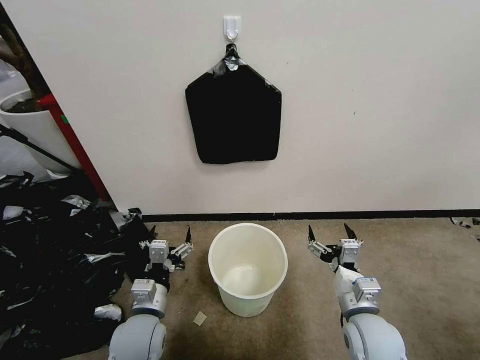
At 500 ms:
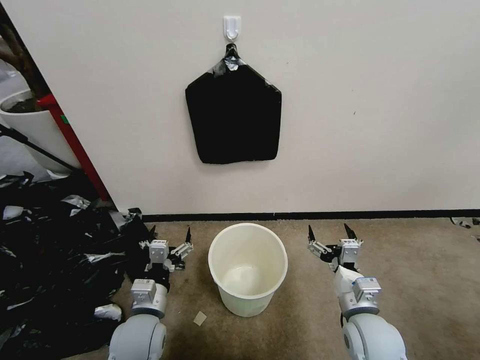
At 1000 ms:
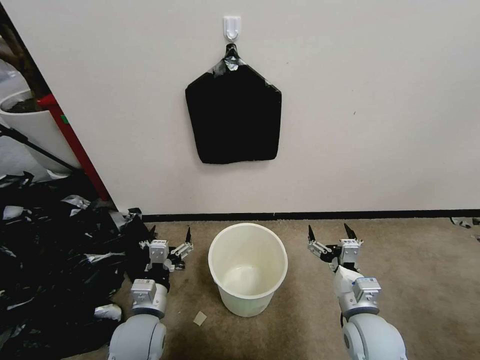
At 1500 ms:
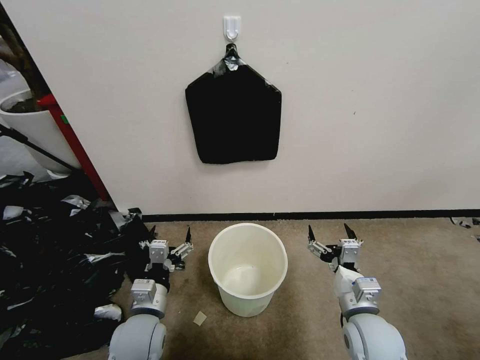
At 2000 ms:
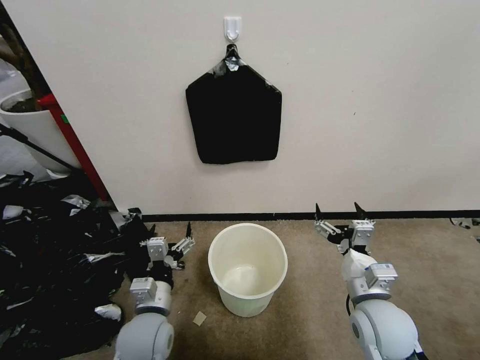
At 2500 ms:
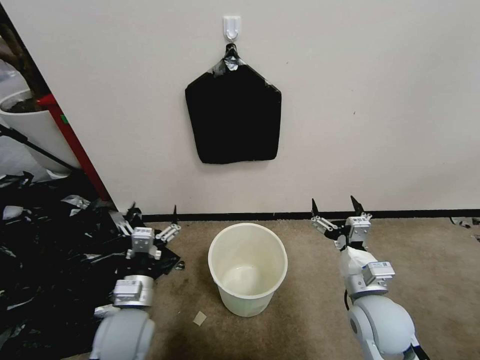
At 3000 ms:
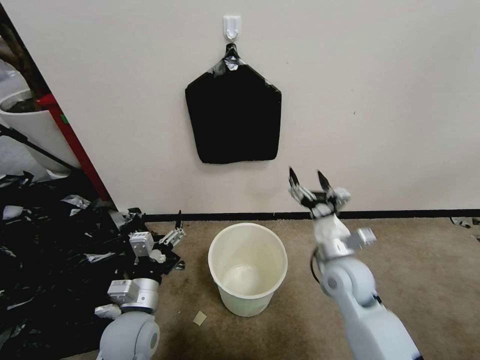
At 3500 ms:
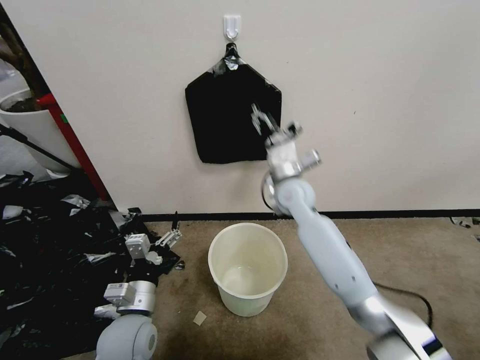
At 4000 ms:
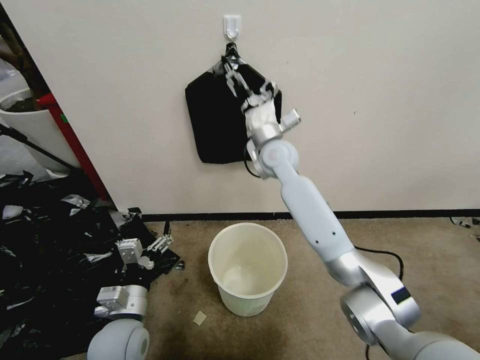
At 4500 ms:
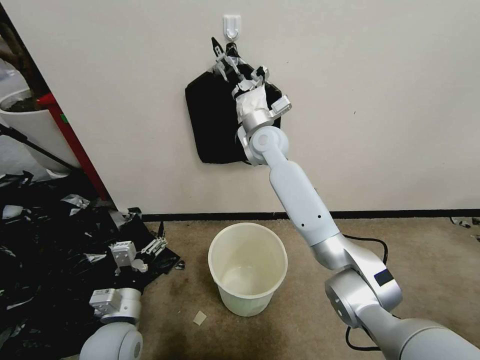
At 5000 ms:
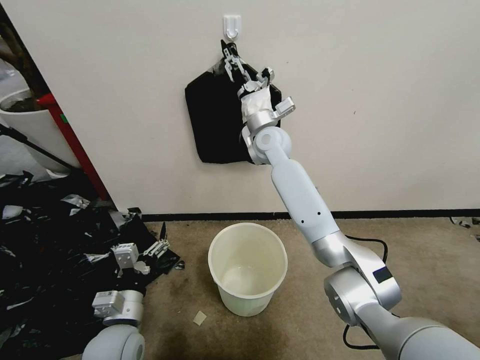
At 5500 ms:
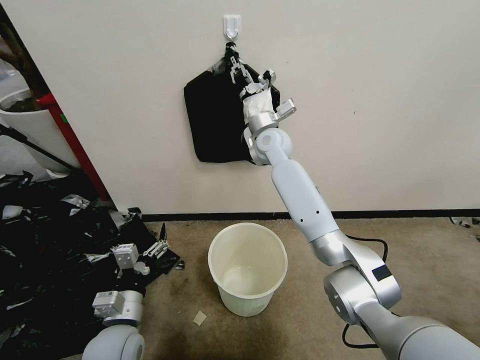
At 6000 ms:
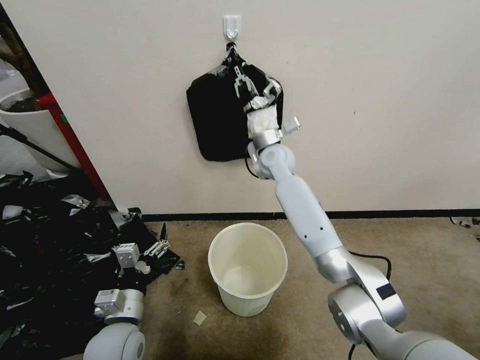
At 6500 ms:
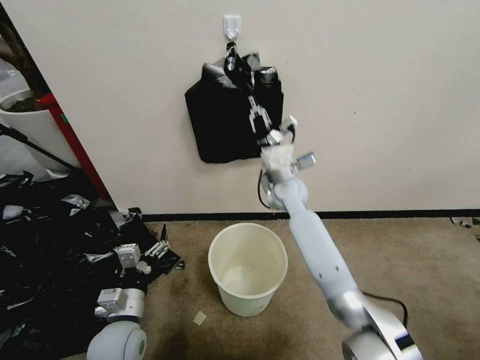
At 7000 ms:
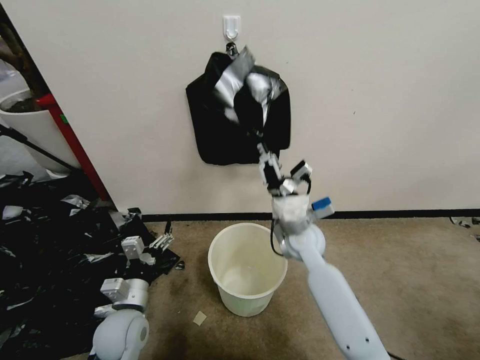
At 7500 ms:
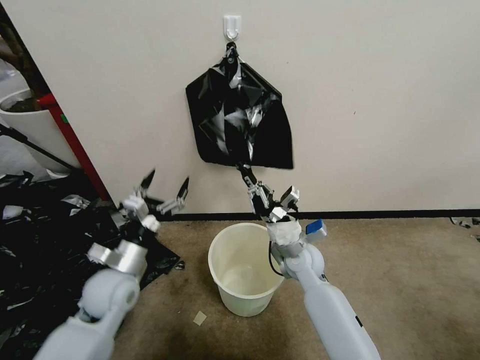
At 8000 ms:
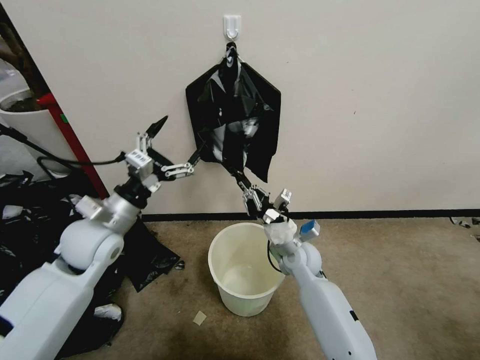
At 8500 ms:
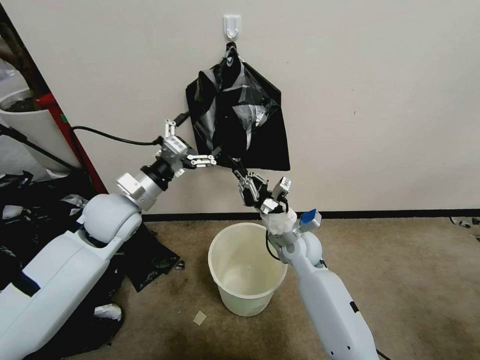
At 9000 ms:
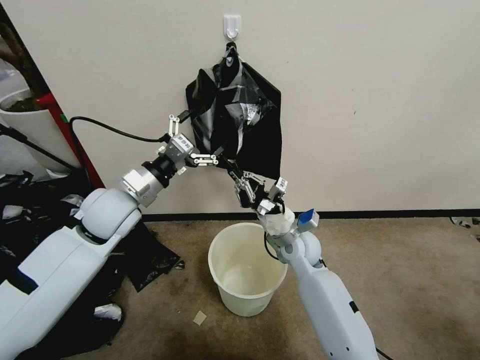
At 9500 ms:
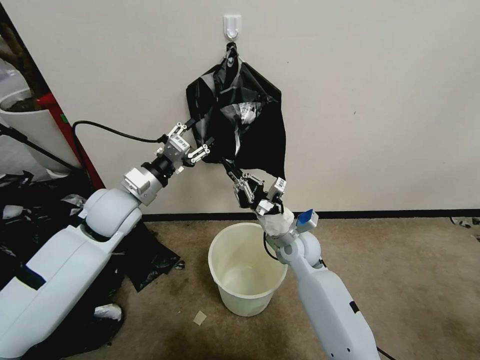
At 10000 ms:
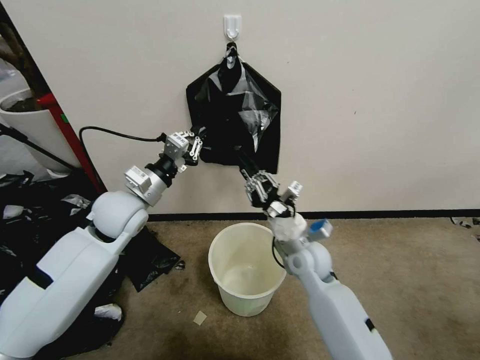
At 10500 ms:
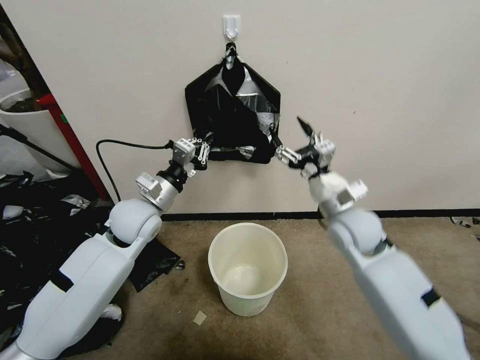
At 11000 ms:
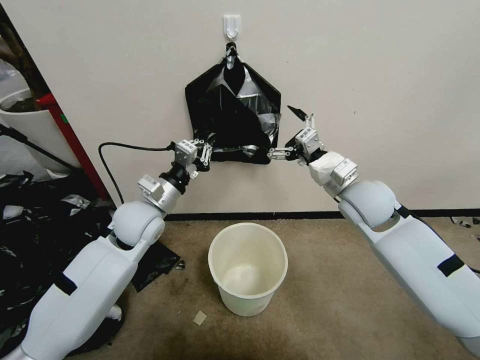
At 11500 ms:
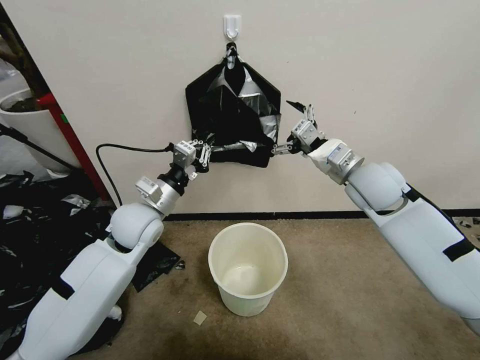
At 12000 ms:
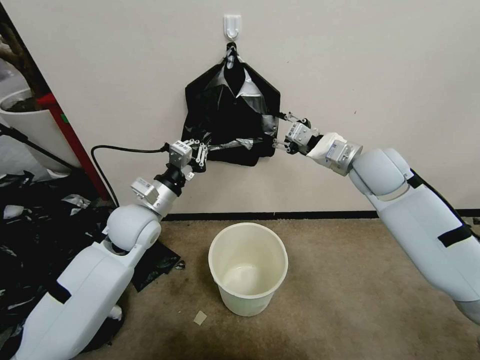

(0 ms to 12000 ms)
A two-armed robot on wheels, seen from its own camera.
Task of the whole recording: Place a trash bag onto the trash bin.
2000 ms - 4000 ms: The left gripper moves to the left, approximately 5 cm; the right gripper heads forward, to the left and upward, covering some 40 cm.
4000 ms - 6000 ms: The right gripper closes.
6000 ms - 8000 ms: The left gripper travels upward and forward by about 20 cm; the right gripper goes about 25 cm downward and backward.
8000 ms - 10000 ms: The left gripper travels forward by some 5 cm, and closes; the right gripper travels upward by some 5 cm.
10000 ms - 12000 ms: The right gripper is displaced upward, to the right and forward by about 25 cm, and opens, then closes again.

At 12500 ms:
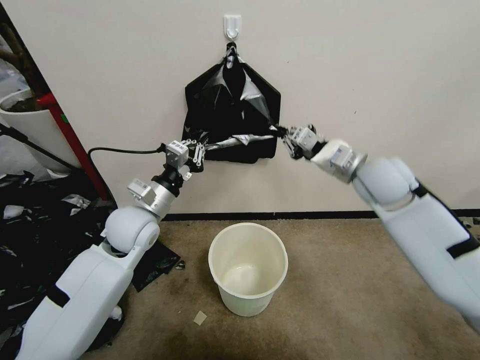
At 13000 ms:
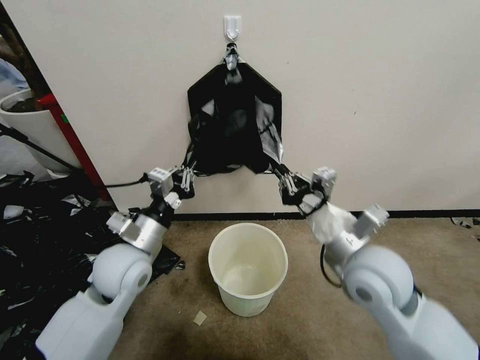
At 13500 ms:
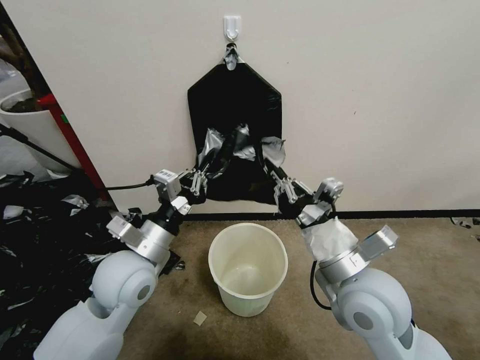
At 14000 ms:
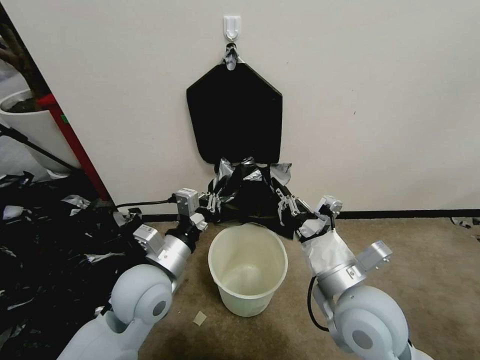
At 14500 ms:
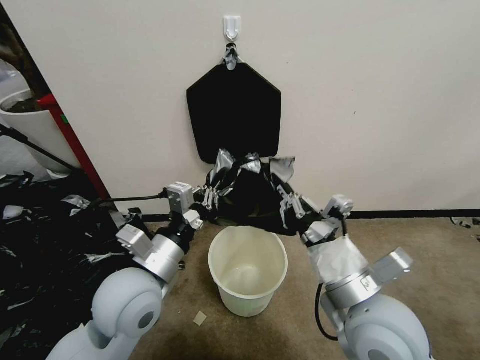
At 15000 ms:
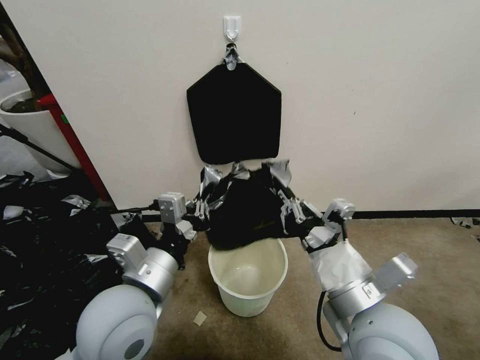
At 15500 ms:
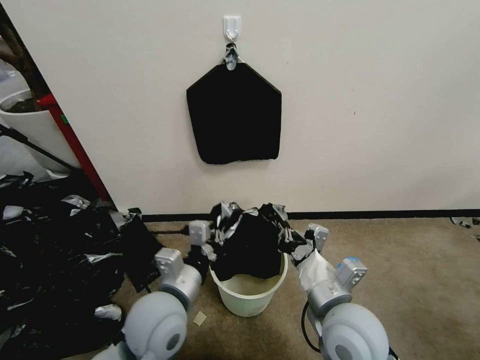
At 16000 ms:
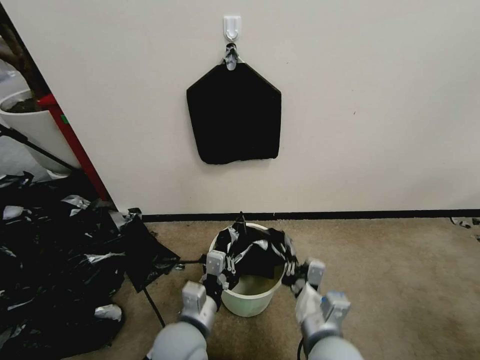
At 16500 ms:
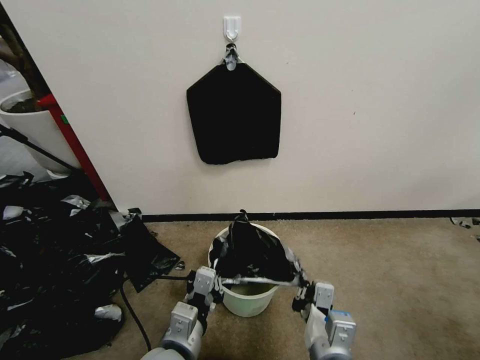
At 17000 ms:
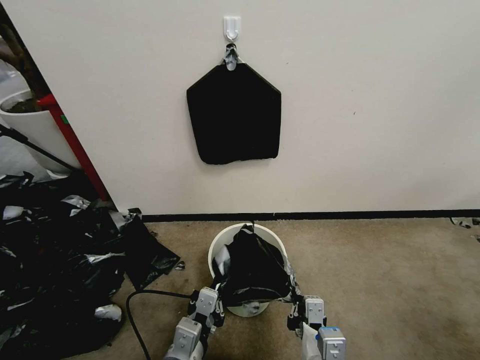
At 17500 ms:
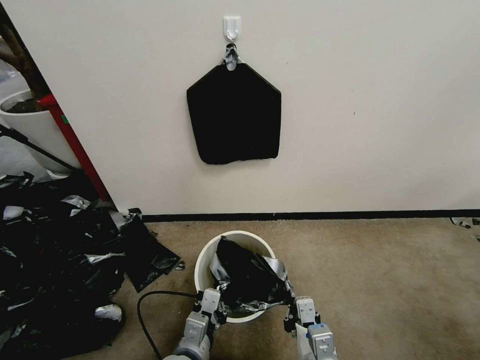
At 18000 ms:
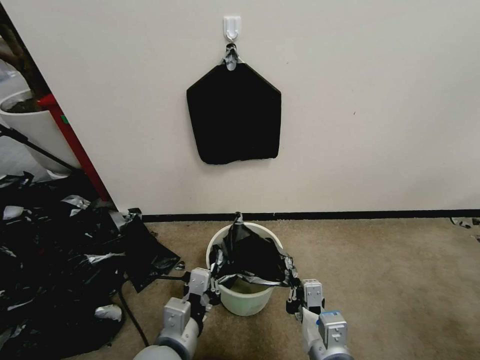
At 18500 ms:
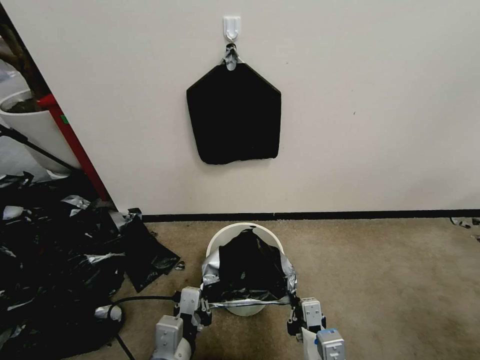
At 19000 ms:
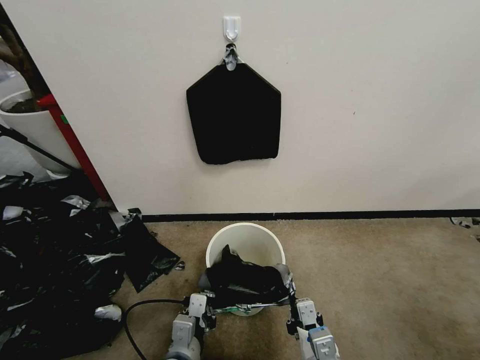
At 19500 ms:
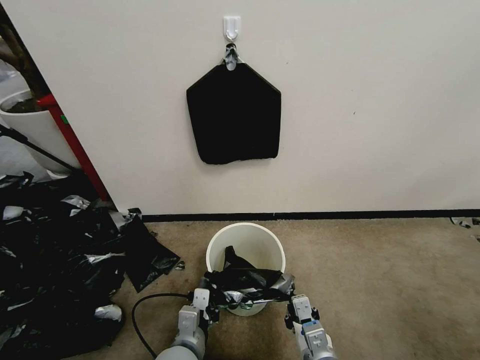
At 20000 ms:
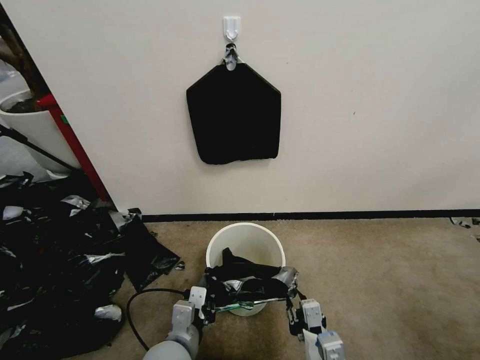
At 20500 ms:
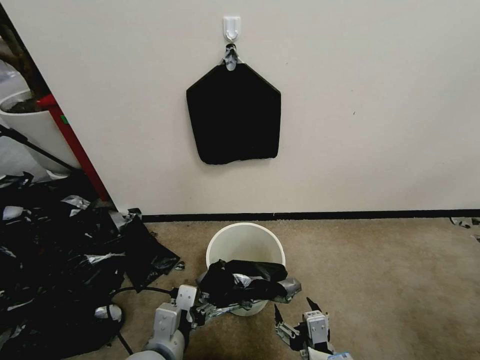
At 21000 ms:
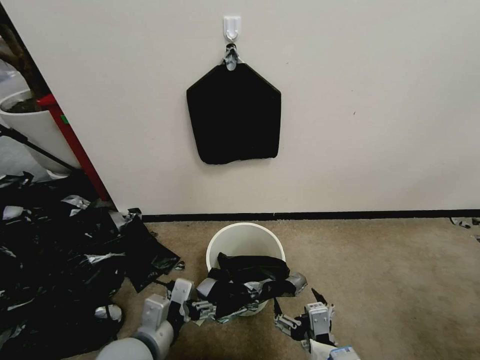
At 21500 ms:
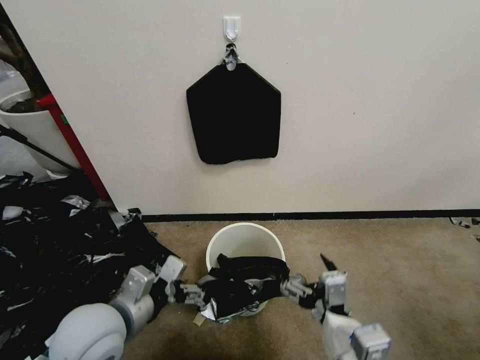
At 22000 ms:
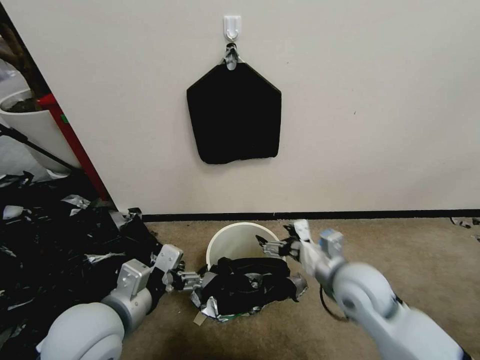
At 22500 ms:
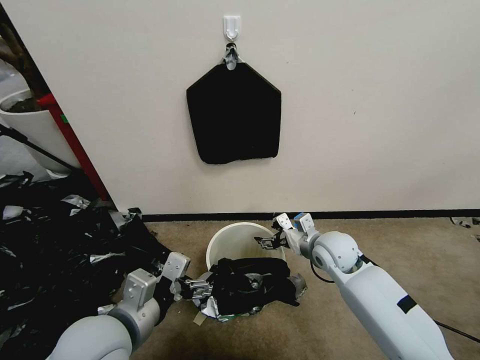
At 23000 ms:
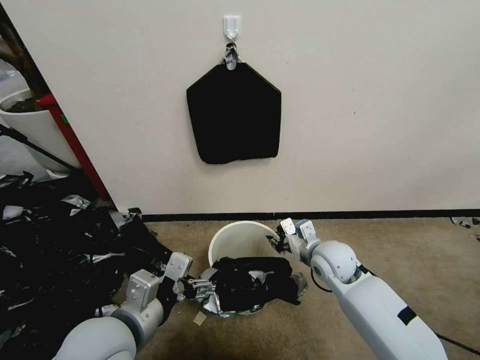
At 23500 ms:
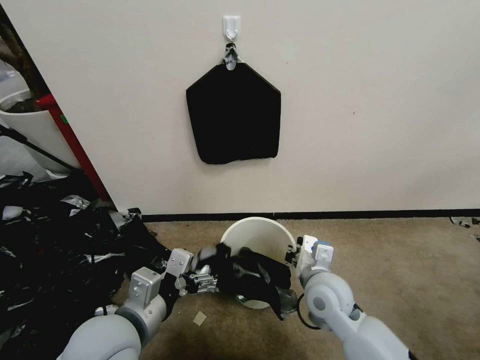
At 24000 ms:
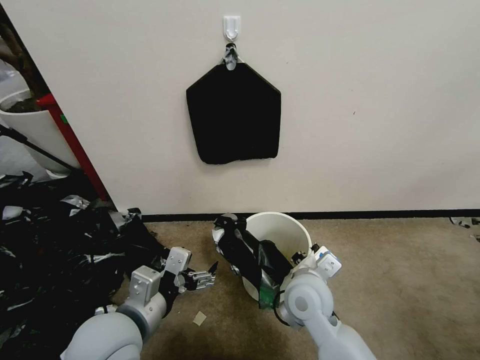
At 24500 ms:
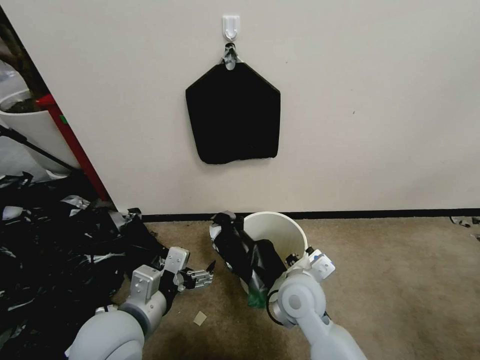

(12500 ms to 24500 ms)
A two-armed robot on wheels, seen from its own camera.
Task of the whole recording: Place a trash bag onto the trash bin.
12500 ms - 14500 ms: The right gripper shifts some 25 cm backward. Meanwhile the left gripper goes about 15 cm backward.
14500 ms - 16500 ms: The grippers both shift downward and backward by some 15 cm.
16500 ms - 18500 ms: The grippers move only a little.
18500 ms - 20500 ms: The left gripper goes downward and returns, roughly 10 cm each way, and opens its fingers, while the right gripper reaches some 5 cm downward, then returns, and opens its fingers.
20500 ms - 22500 ms: The left gripper shifts about 10 cm upward and to the left. The right gripper goes some 30 cm forward.
22500 ms - 24500 ms: The right gripper moves backward and to the left, approximately 15 cm, and closes.

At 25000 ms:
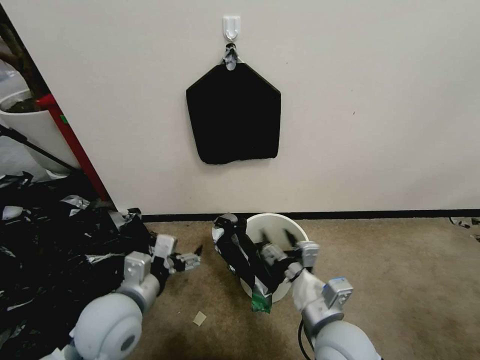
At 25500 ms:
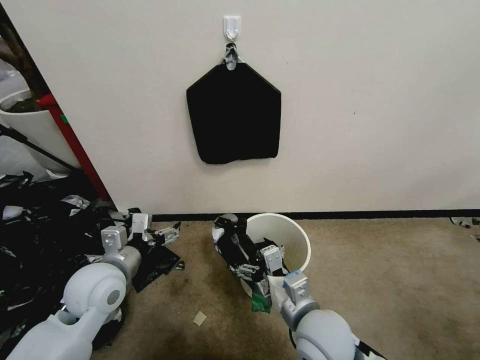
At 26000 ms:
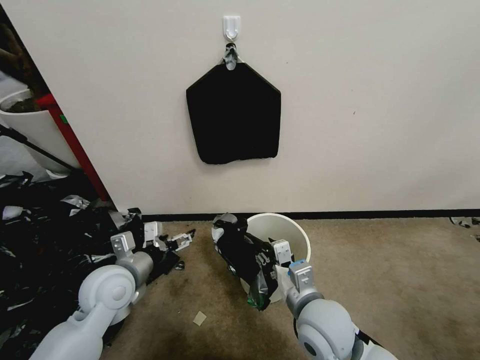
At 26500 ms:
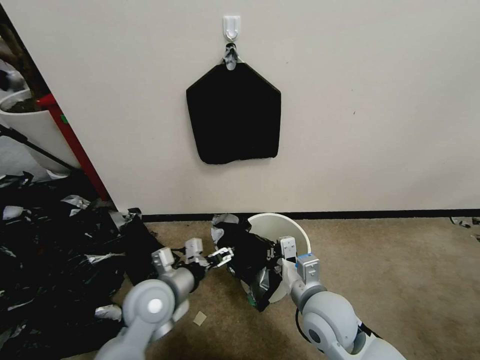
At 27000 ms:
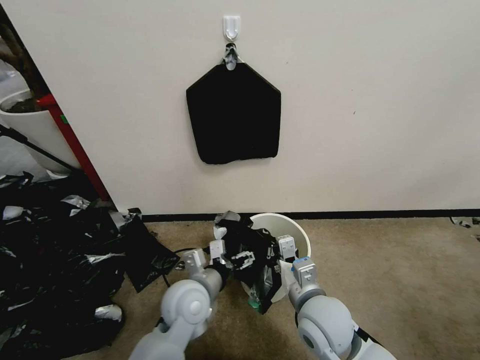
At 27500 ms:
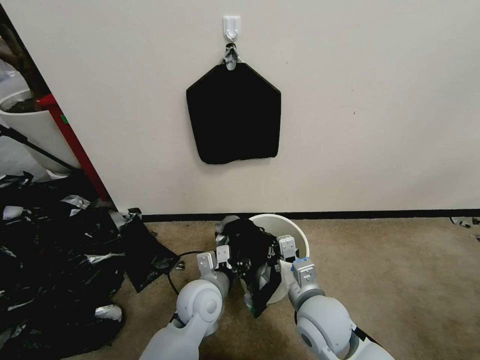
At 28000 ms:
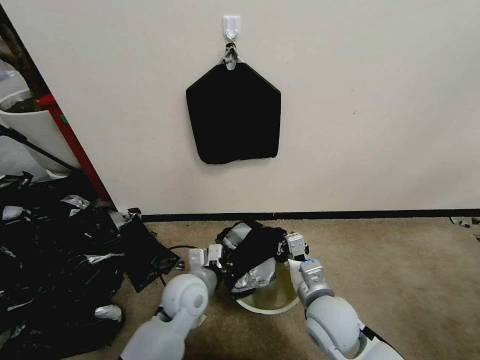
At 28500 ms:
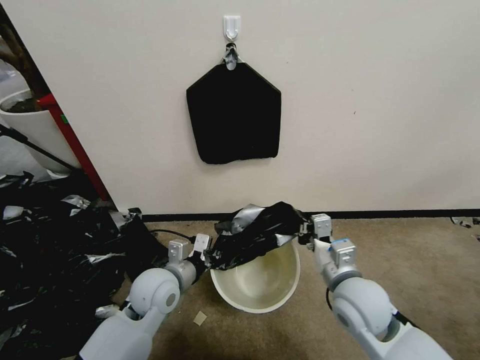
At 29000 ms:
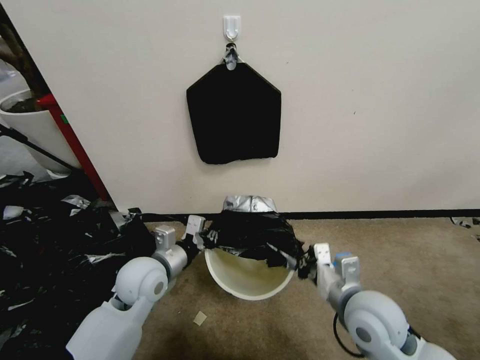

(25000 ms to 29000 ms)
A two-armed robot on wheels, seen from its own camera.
Task of the whole recording: Place a trash bag onto the trash bin.
25000 ms - 27000 ms: The left gripper is displaced to the right, downward and forward by some 15 cm. The right gripper ends up approximately 5 cm from where it was, and closes up.
27000 ms - 29000 ms: The left gripper shifts about 10 cm to the left, and closes up; the right gripper shifts about 10 cm to the right.
